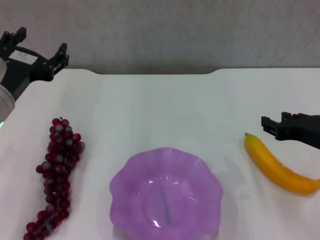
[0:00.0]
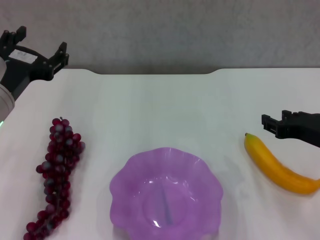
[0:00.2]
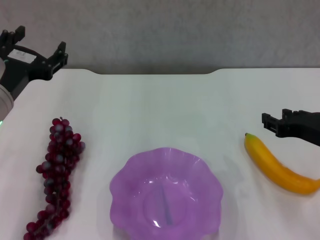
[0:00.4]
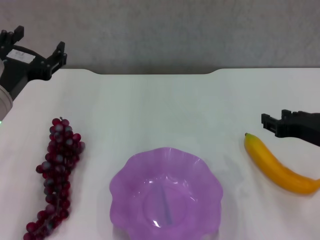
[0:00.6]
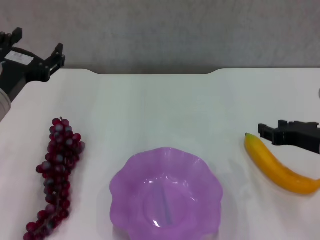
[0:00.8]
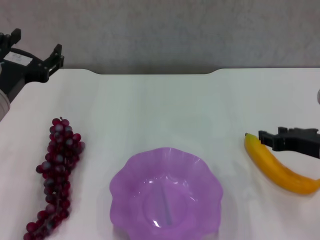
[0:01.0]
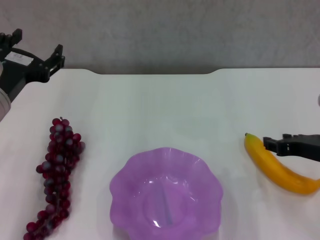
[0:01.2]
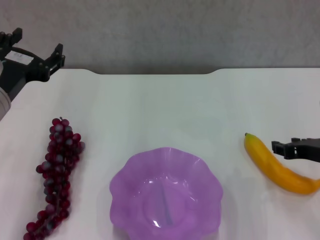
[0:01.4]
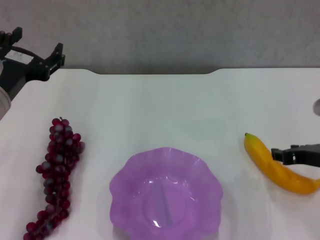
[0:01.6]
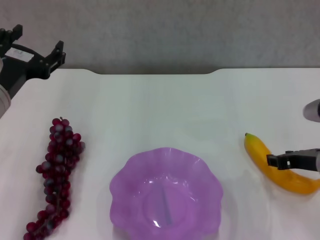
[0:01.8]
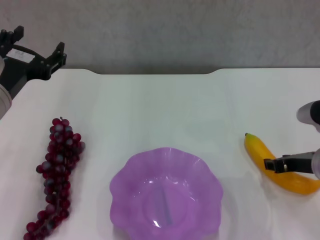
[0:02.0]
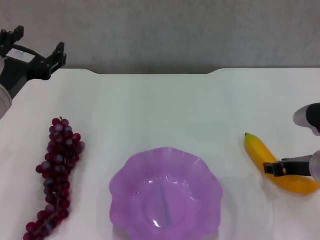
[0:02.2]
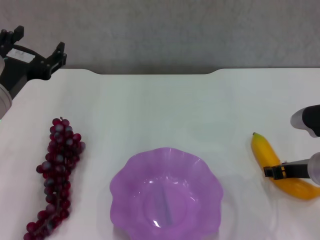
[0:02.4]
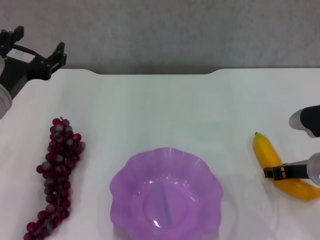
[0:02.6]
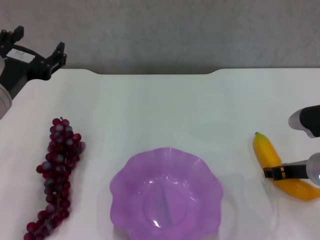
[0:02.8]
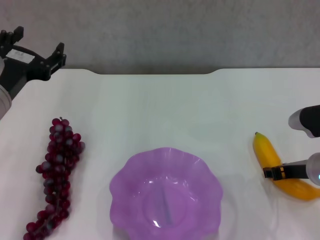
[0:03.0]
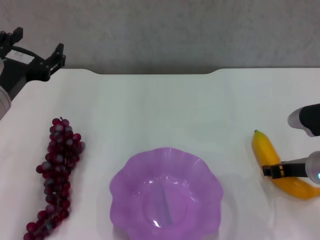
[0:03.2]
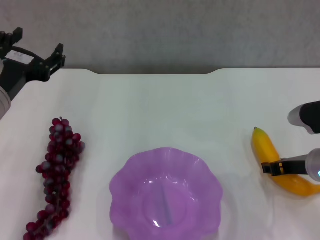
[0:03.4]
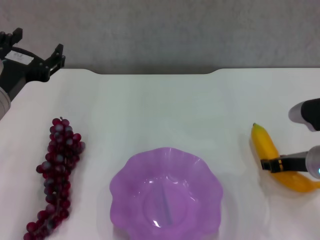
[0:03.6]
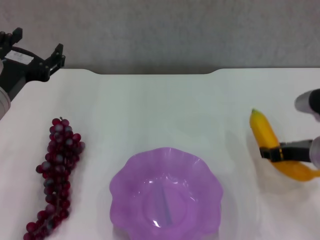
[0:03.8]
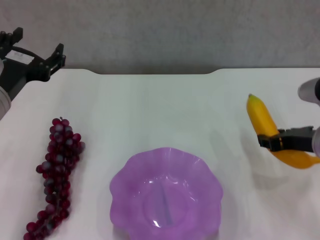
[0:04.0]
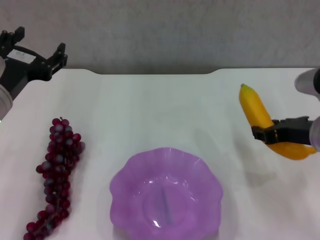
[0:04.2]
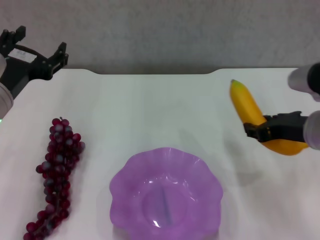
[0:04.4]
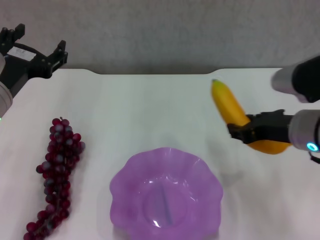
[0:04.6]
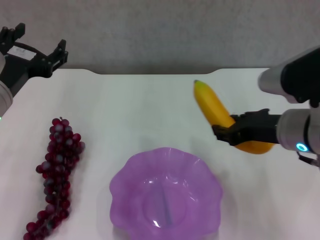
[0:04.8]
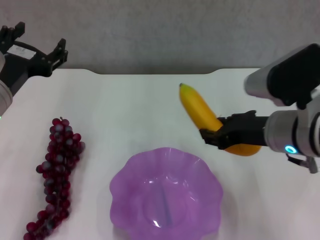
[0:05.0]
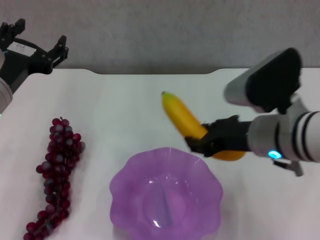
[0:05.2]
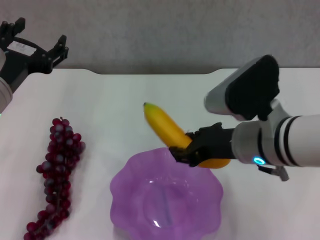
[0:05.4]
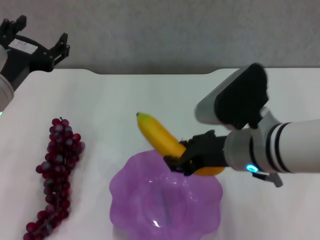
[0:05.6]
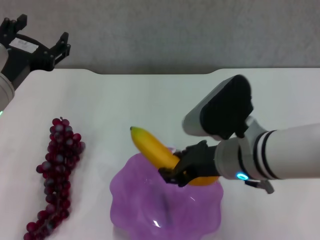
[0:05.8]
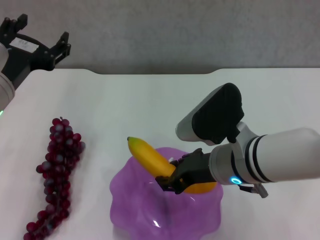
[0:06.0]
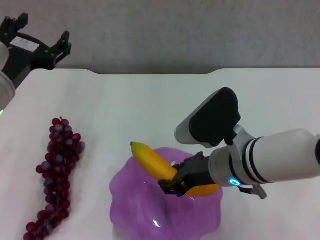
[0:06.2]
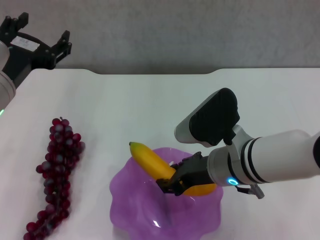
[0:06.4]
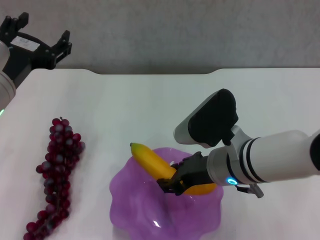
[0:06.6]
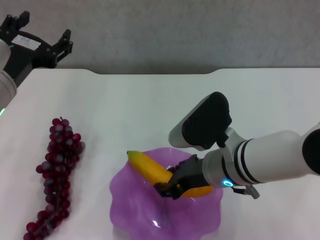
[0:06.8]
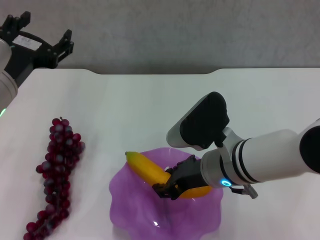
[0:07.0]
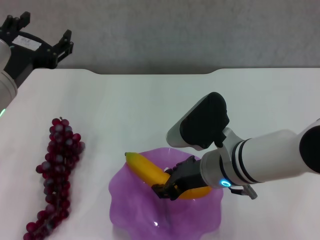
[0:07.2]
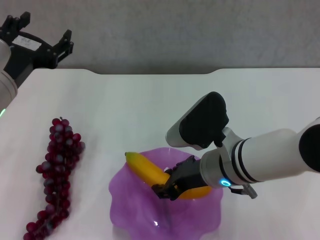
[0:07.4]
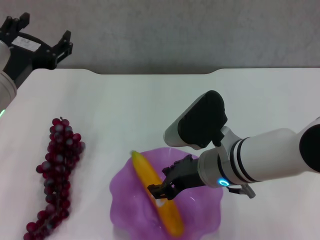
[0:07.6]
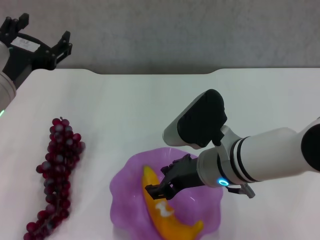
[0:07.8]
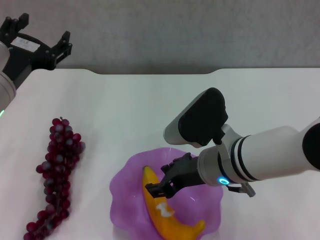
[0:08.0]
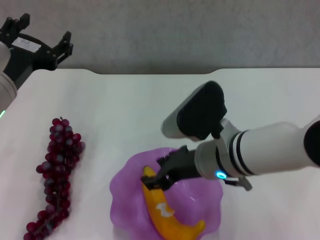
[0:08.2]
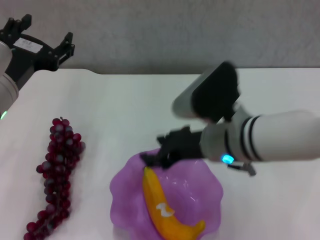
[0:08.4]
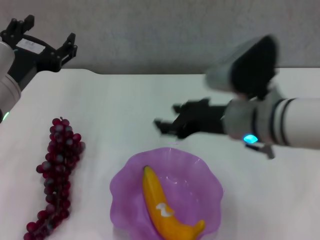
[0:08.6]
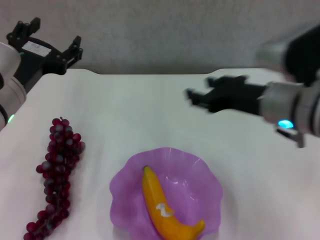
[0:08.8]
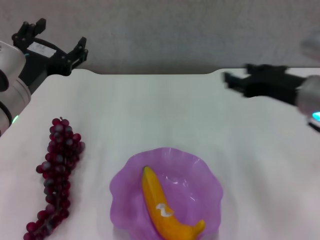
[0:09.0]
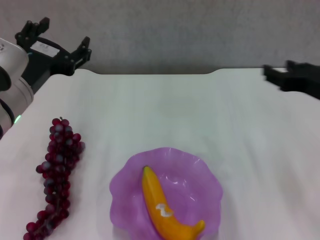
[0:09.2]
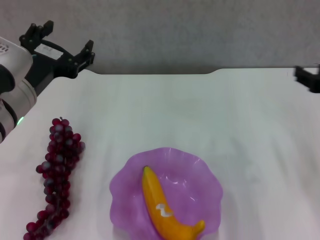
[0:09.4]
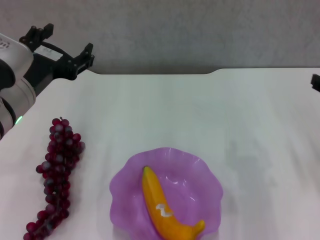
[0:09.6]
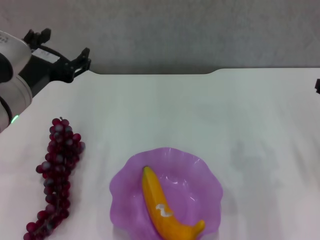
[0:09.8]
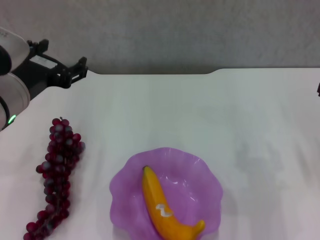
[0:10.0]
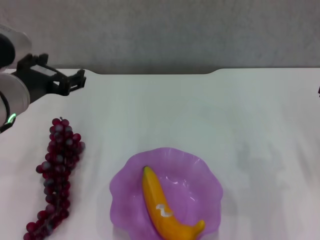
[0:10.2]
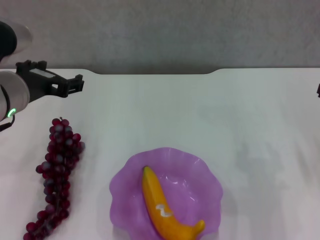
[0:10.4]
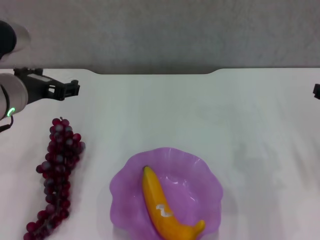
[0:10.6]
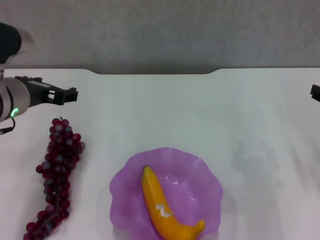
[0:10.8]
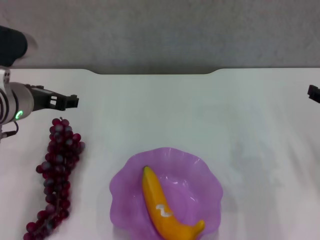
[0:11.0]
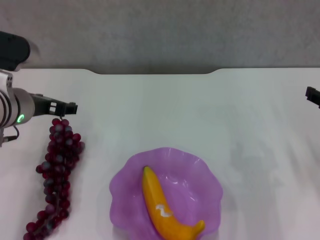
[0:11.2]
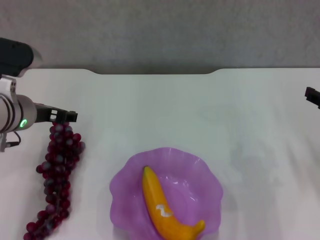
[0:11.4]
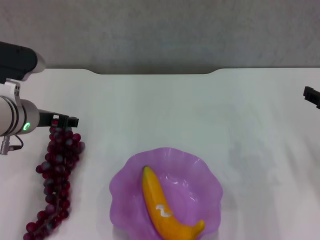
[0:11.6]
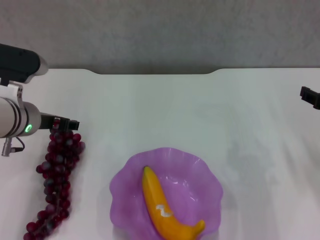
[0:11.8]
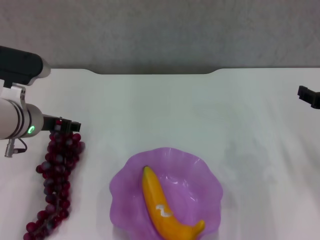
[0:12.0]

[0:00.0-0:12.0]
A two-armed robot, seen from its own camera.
Step, 0:00.0 to 0:03.0: Grasp the banana with right gripper.
Step, 0:03.4 to 0:07.6: Place the banana in the purple plate with right gripper.
0:00.0 to 0:01.6: The grippers stay close to where they were, moving slightly.
0:01.6 to 0:03.0: The grippers stay close to where they were, moving slightly.
0:03.0 to 0:04.4: The right gripper goes some 10 cm upward.
0:04.4 to 0:06.0: The right gripper travels to the left by roughly 10 cm.
0:06.0 to 0:07.6: The grippers stay close to where they were, moving slightly.
0:07.6 to 0:09.0: The right gripper is displaced to the right and upward by approximately 15 cm, and opens up.
0:09.0 to 0:10.4: The right gripper is displaced to the right by approximately 10 cm.
0:10.4 to 0:12.0: The left gripper travels downward and forward by approximately 10 cm.

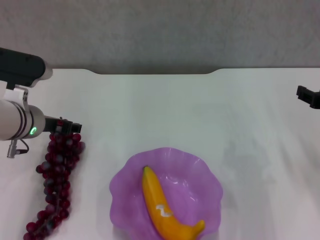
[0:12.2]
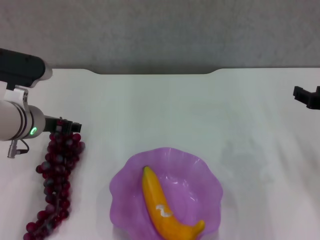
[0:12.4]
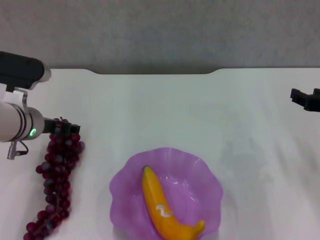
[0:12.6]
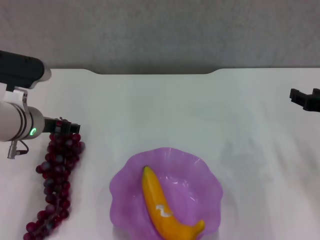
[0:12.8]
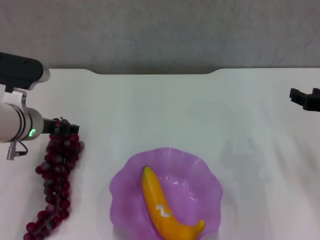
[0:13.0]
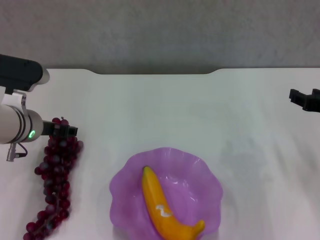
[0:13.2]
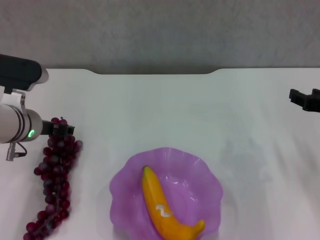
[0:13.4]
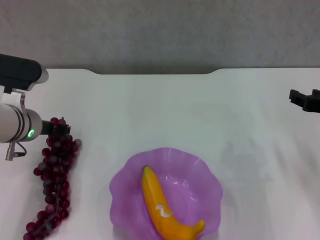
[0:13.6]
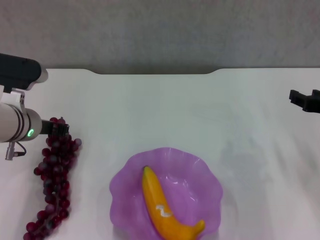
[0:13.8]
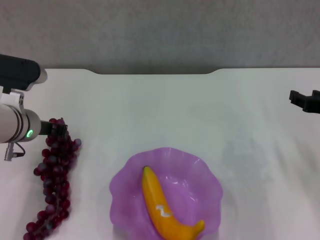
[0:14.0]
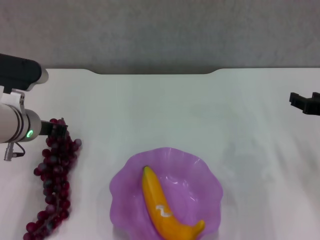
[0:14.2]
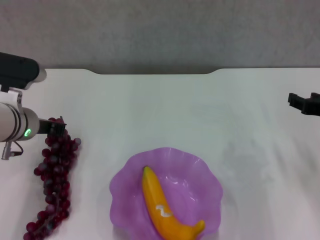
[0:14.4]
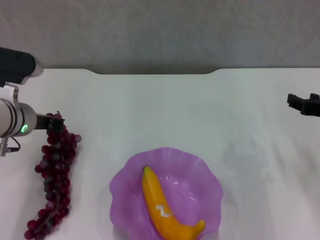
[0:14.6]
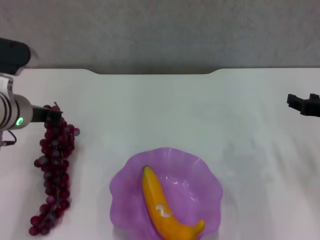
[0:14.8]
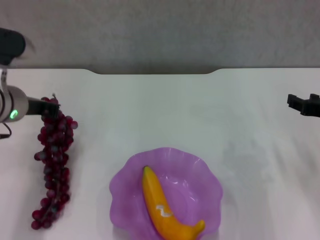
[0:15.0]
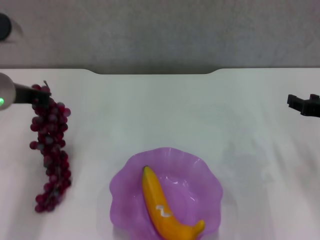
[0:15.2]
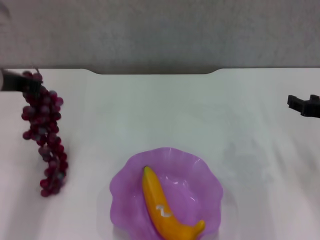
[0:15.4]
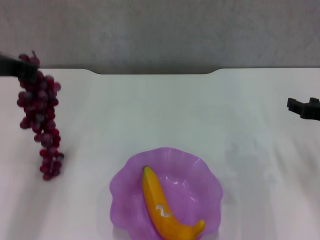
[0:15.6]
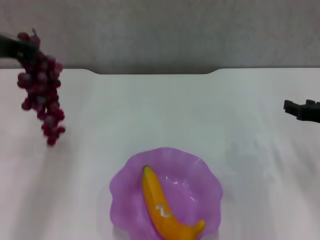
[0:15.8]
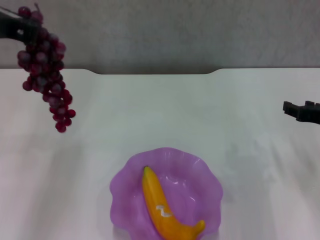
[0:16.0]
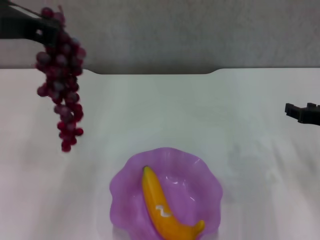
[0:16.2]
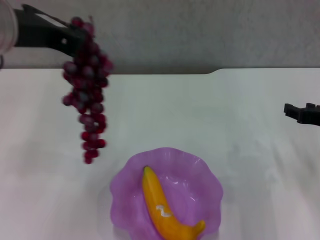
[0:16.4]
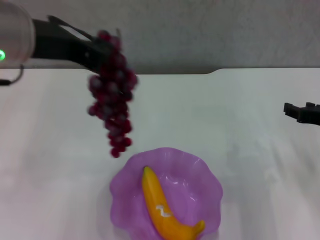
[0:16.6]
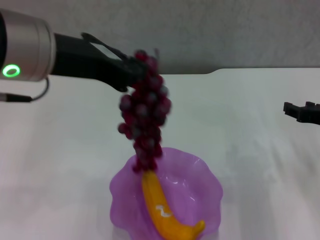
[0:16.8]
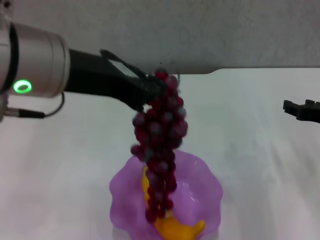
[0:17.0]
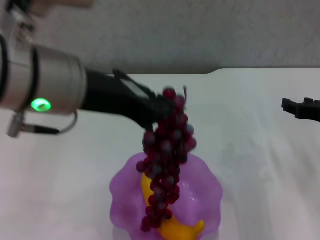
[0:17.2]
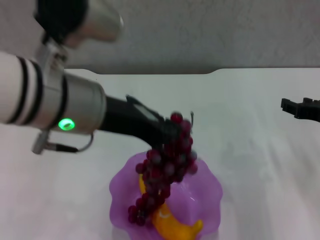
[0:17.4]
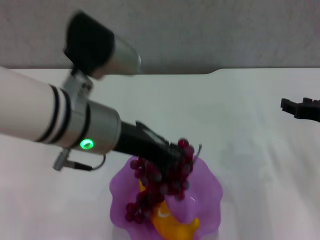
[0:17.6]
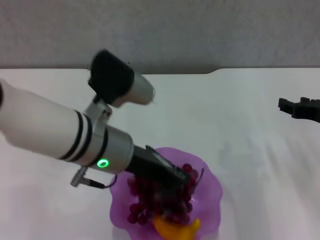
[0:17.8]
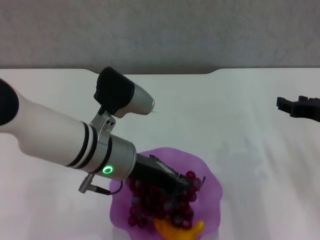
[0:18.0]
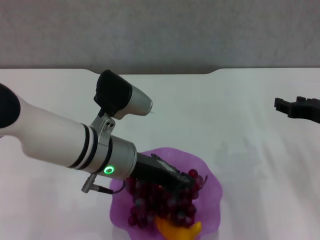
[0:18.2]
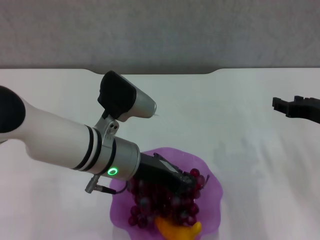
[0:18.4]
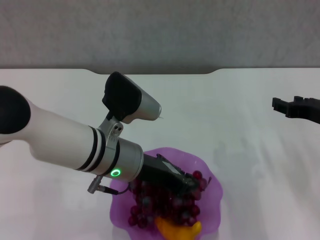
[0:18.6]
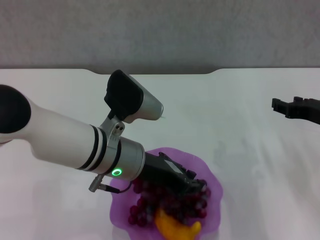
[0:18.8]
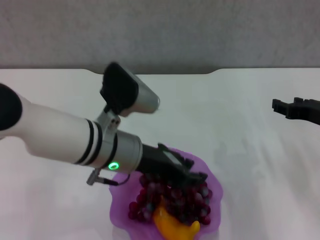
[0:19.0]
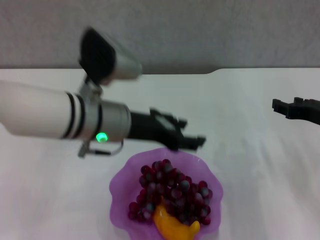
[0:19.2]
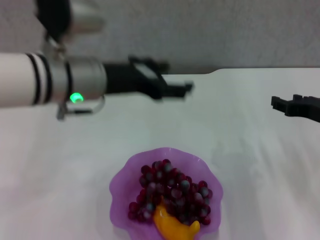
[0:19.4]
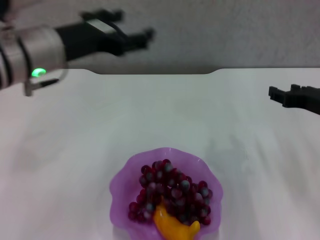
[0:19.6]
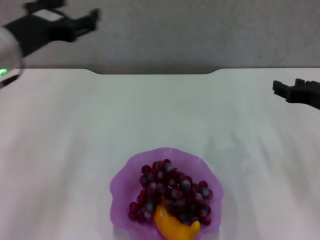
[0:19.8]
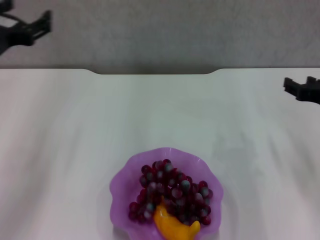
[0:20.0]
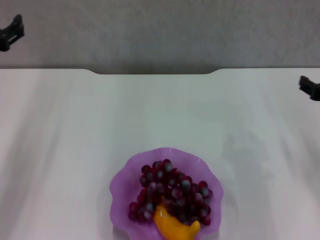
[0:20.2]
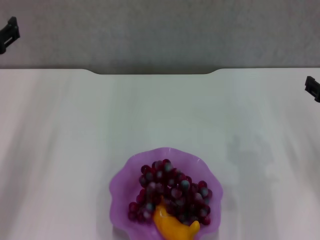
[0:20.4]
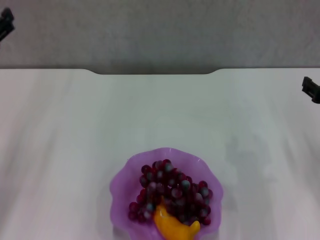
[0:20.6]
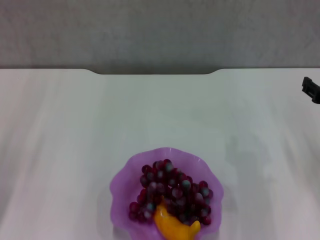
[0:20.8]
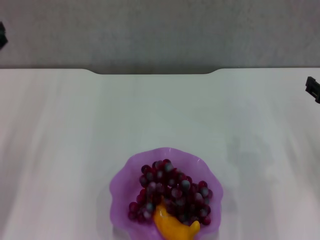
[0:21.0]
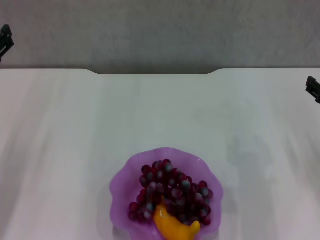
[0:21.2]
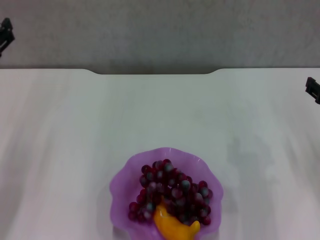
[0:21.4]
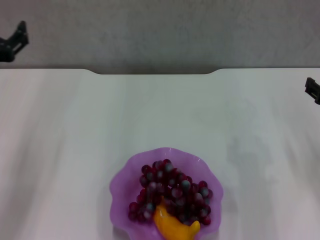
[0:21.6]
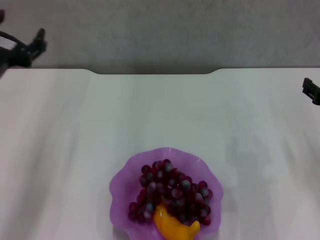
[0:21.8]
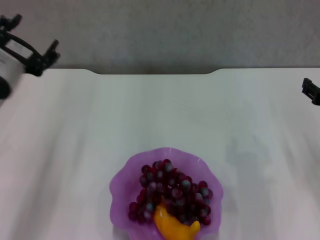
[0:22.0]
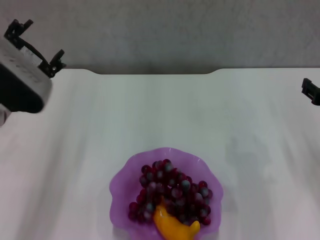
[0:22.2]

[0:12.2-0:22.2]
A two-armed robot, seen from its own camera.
Step, 0:14.2 to 0:19.0: Place the grape in the purple plate with left gripper.
0:12.2 to 0:13.6: Neither gripper changes place.
0:13.6 to 0:15.0: The left gripper shifts some 5 cm upward, and closes.
0:15.0 to 0:16.4: The left gripper moves upward and backward, roughly 15 cm.
0:16.4 to 0:18.0: The left gripper goes approximately 20 cm downward and to the right.
0:18.0 to 0:19.4: The left gripper moves upward, roughly 10 cm, and opens.
0:19.4 to 0:20.8: The left gripper heads to the left, covering about 20 cm.
0:20.8 to 0:22.2: The left gripper travels to the right by about 10 cm.
